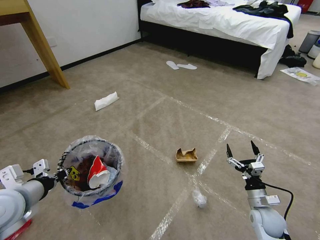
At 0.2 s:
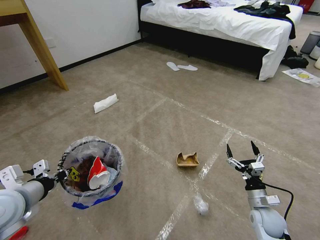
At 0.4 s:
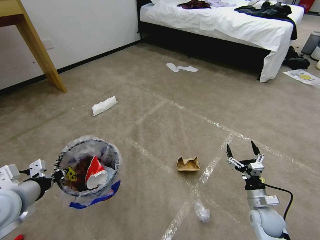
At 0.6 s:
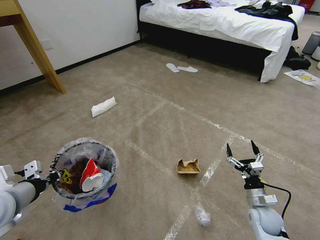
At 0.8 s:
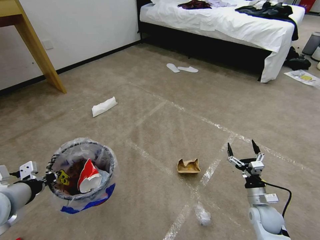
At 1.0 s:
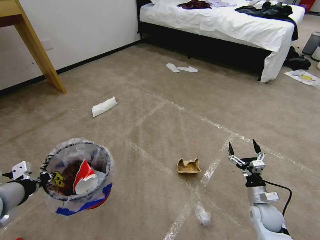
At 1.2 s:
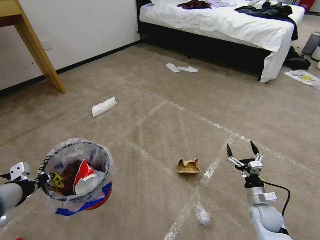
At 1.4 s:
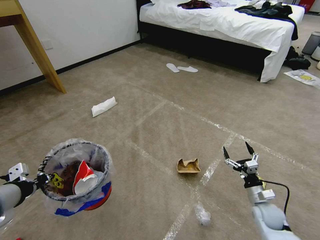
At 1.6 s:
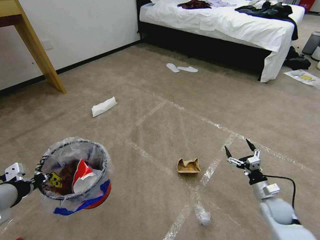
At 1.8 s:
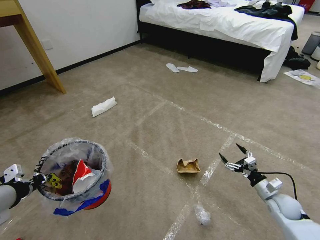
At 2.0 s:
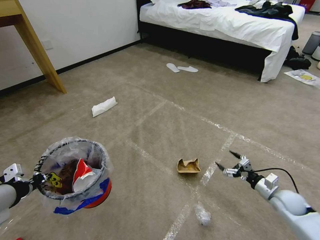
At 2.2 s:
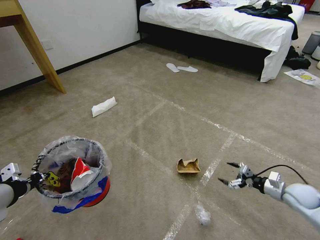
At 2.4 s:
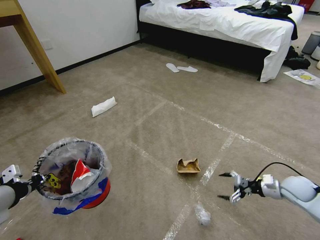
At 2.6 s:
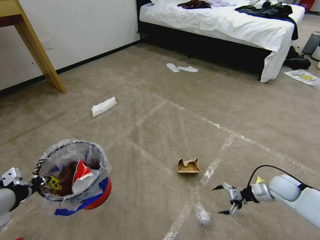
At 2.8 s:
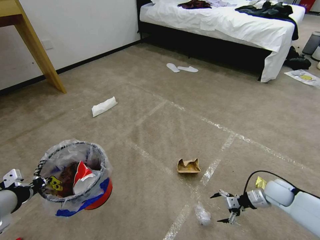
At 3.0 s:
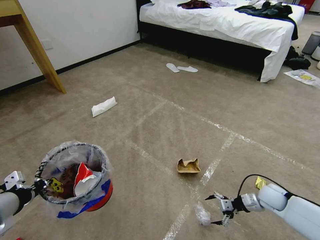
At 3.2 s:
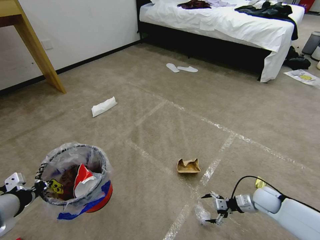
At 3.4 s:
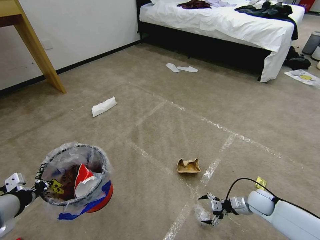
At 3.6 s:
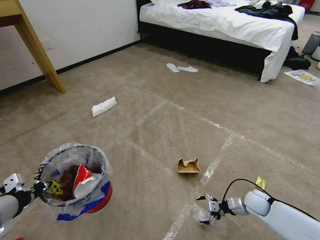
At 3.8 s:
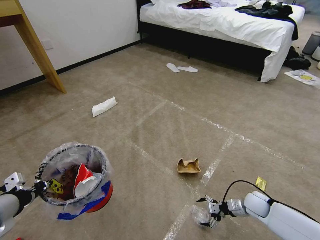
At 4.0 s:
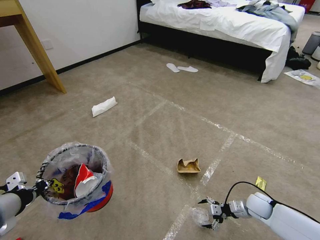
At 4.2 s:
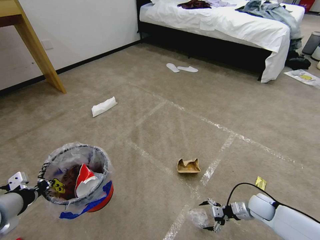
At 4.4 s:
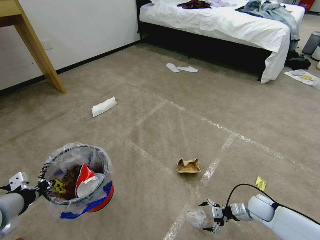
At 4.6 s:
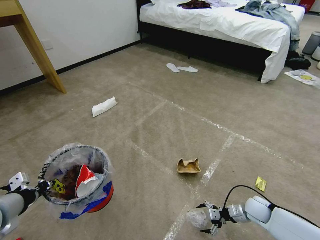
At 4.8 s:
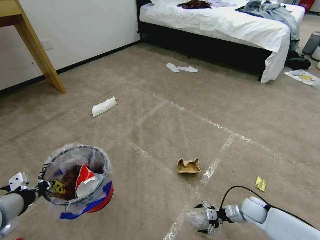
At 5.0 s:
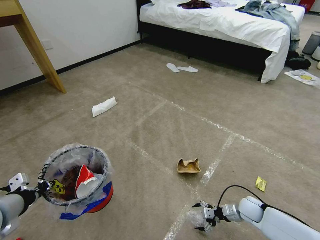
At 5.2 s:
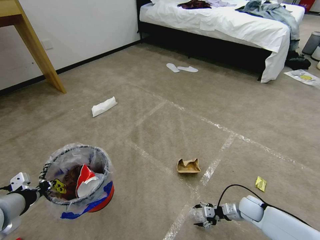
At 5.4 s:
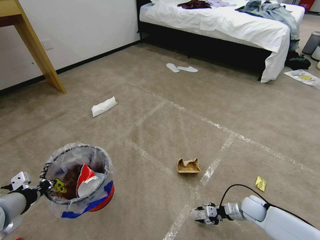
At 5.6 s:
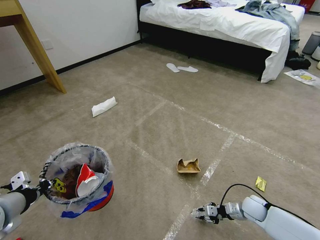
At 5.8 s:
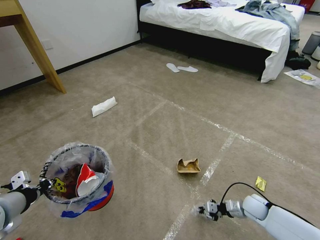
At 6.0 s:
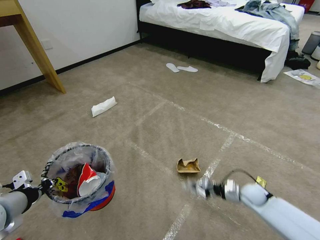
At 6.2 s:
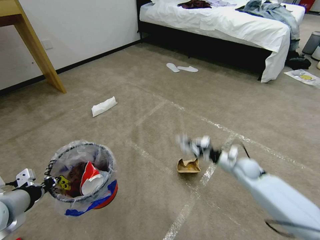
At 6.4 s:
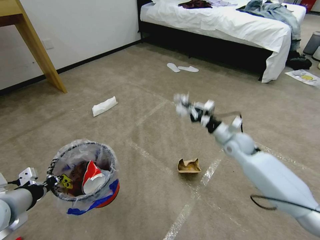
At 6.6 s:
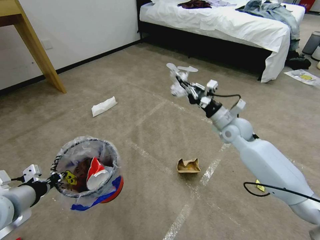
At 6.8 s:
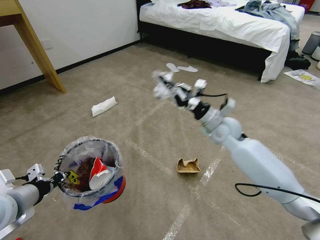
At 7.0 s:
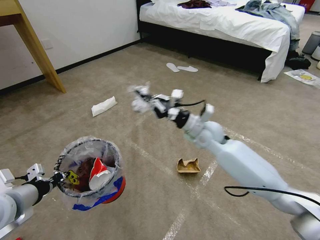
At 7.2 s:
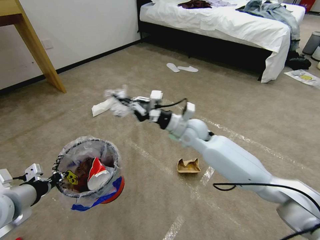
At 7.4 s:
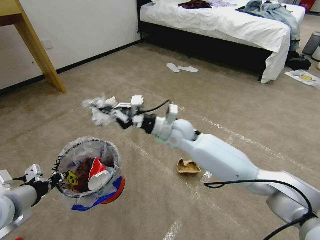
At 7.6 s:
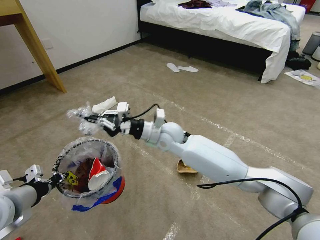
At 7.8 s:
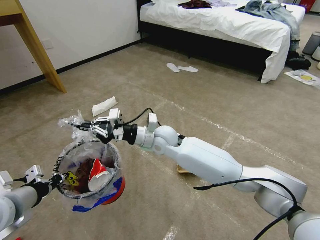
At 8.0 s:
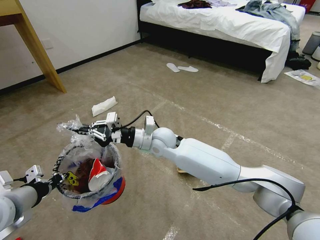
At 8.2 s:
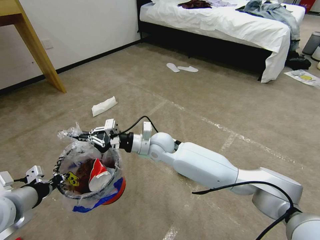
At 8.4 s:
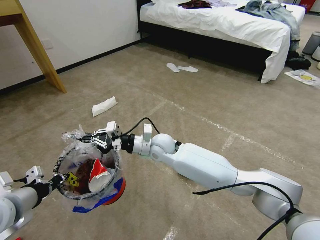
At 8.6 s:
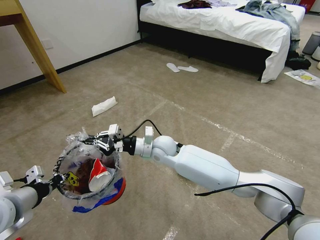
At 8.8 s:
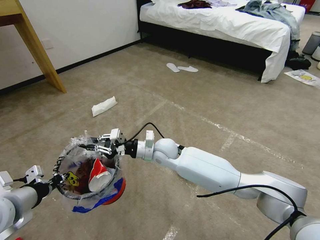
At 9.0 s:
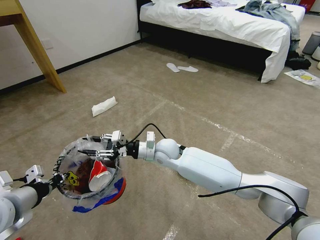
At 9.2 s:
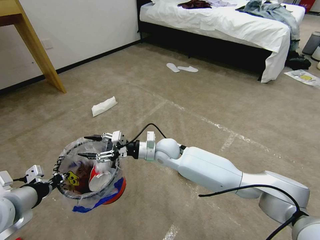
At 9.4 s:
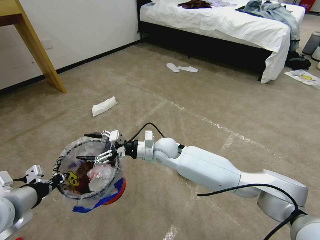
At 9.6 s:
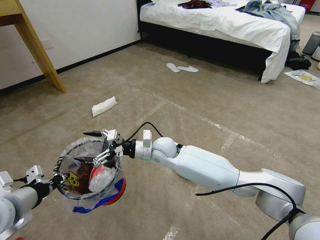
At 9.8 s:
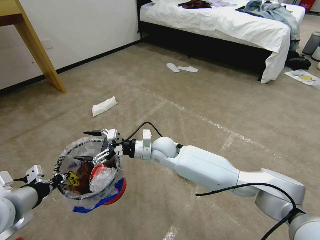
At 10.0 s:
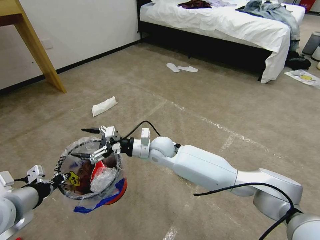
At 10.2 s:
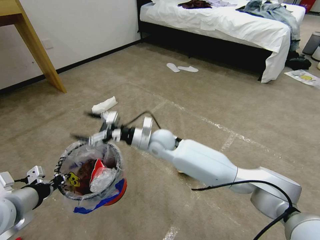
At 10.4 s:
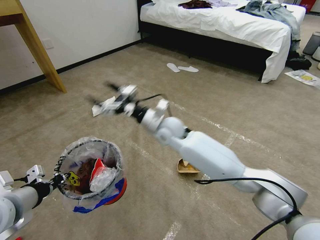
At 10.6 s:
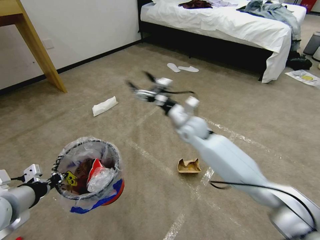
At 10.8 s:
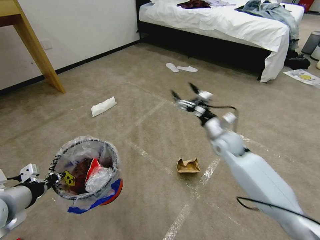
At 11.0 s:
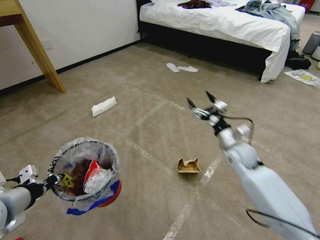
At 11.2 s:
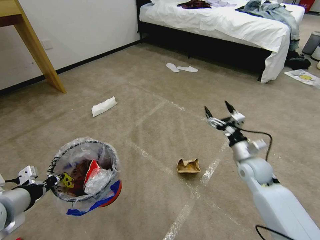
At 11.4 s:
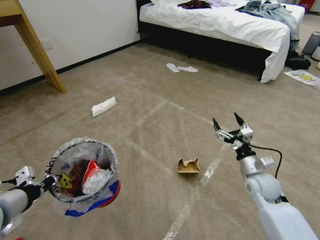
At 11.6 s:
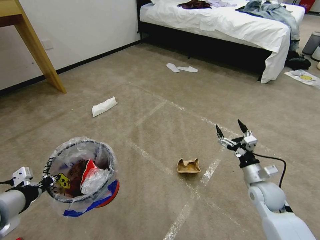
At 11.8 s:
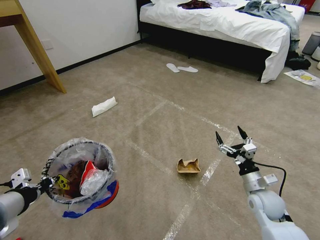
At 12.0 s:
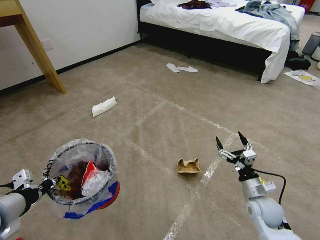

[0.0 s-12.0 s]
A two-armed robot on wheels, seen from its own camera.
Task of the whole recording: Pick up the trash bin and place the garbage on the floor into it.
0.0 to 1.6 s: The right gripper goes about 5 cm to the right; the left gripper shifts by some 5 cm.
3.0 to 4.4 s: The right gripper heads downward, covering roughly 5 cm.
4.4 to 6.0 s: The right gripper ends up about 5 cm from where it was, and closes up.
6.0 to 7.6 s: The right gripper shifts some 40 cm to the left and upward.
7.6 to 9.0 s: The right gripper travels downward by roughly 5 cm, and opens up.
9.0 to 10.4 s: The right gripper travels upward by some 10 cm, and opens.
10.4 to 12.0 s: The right gripper shifts some 40 cm to the right, backward and downward.

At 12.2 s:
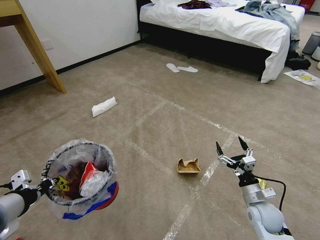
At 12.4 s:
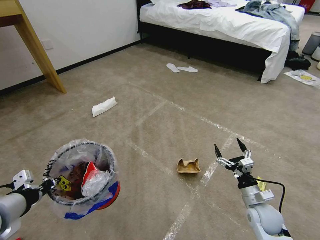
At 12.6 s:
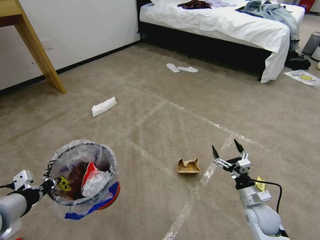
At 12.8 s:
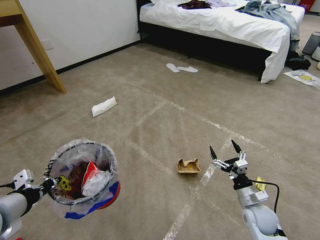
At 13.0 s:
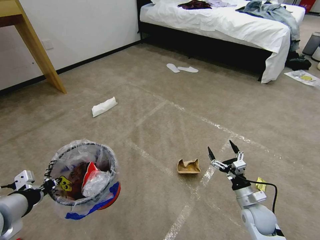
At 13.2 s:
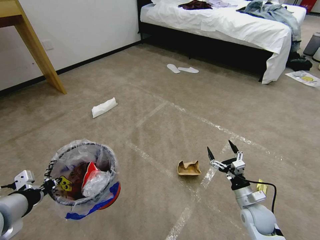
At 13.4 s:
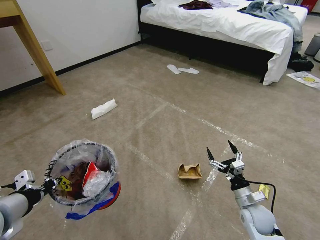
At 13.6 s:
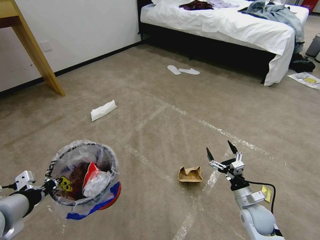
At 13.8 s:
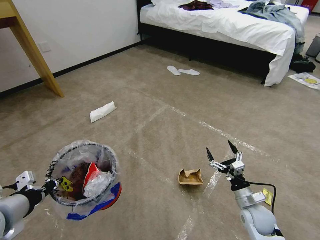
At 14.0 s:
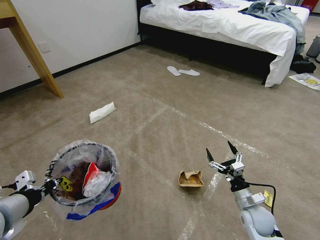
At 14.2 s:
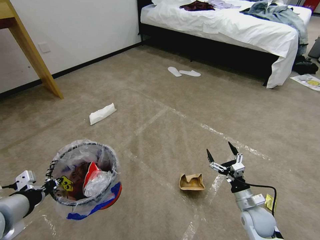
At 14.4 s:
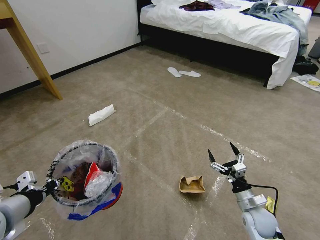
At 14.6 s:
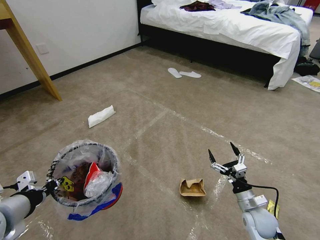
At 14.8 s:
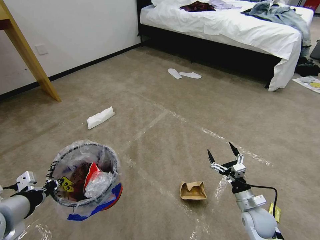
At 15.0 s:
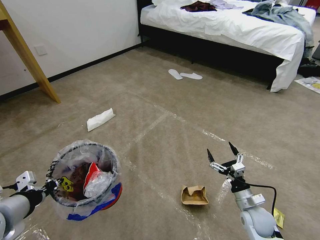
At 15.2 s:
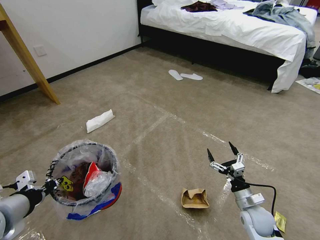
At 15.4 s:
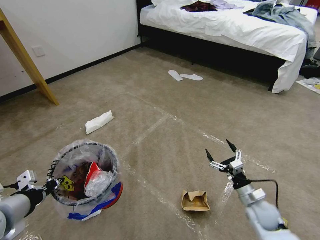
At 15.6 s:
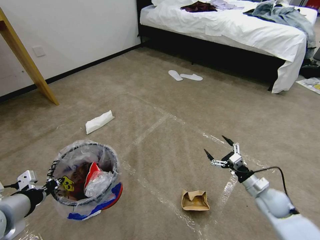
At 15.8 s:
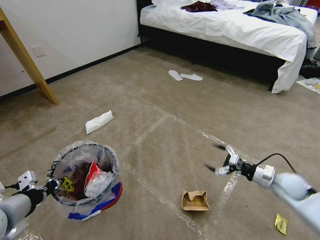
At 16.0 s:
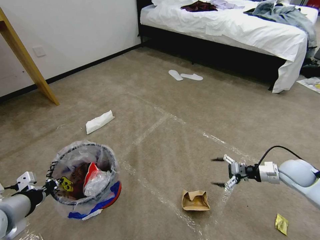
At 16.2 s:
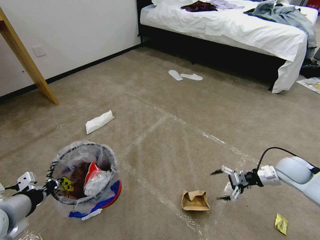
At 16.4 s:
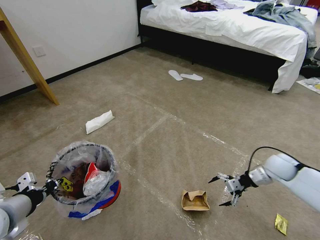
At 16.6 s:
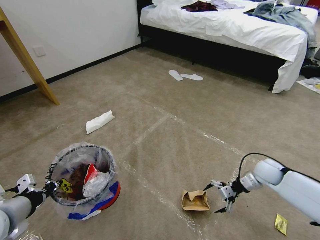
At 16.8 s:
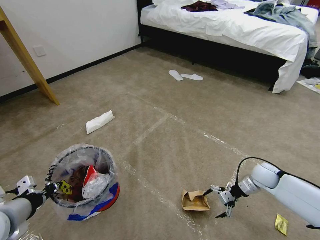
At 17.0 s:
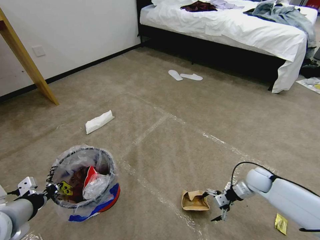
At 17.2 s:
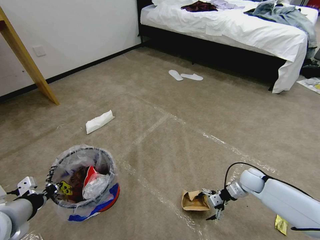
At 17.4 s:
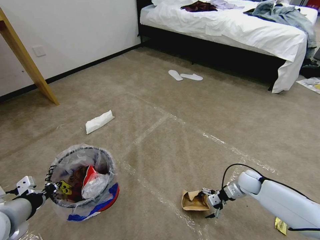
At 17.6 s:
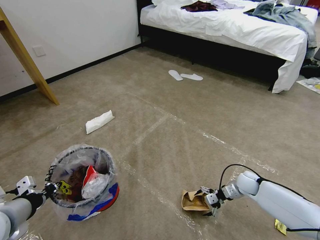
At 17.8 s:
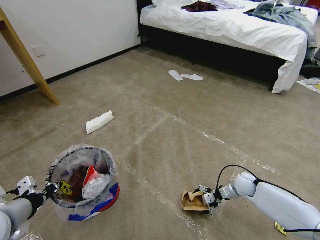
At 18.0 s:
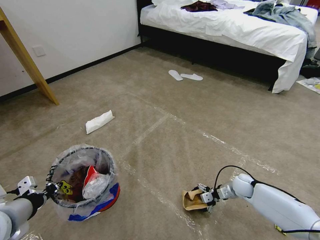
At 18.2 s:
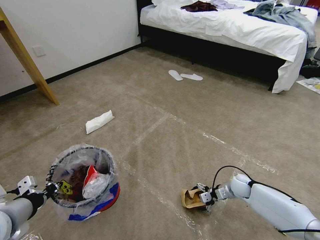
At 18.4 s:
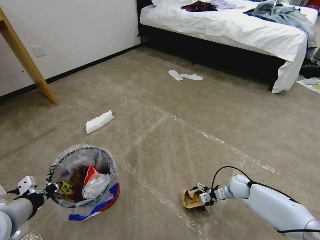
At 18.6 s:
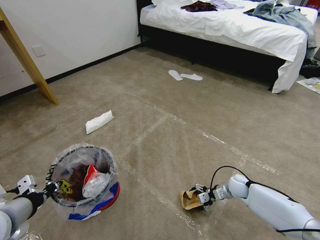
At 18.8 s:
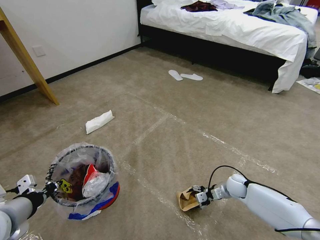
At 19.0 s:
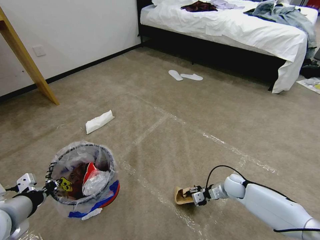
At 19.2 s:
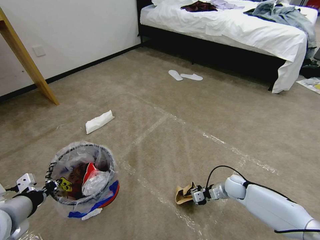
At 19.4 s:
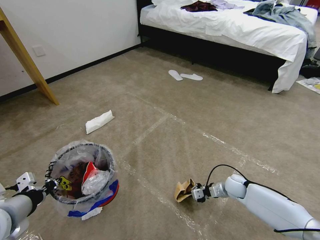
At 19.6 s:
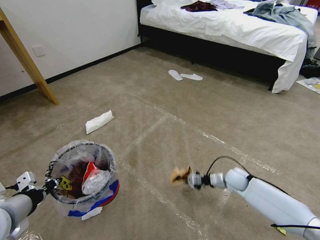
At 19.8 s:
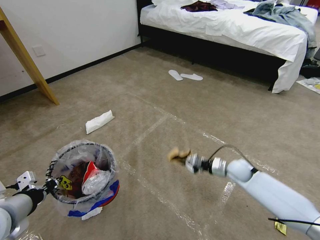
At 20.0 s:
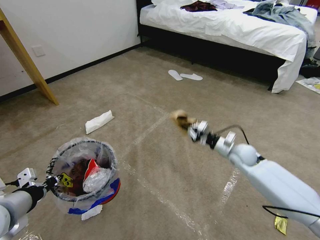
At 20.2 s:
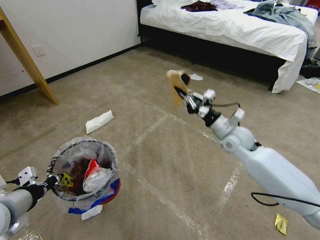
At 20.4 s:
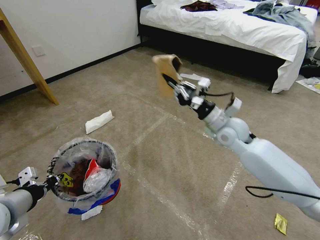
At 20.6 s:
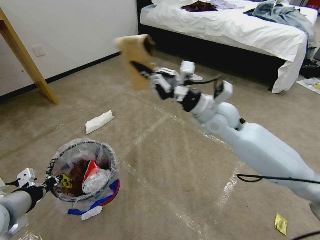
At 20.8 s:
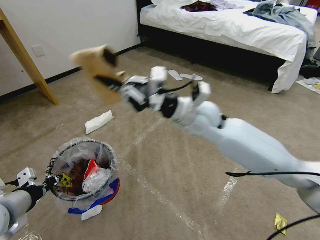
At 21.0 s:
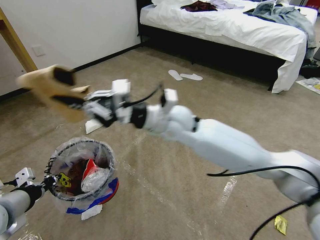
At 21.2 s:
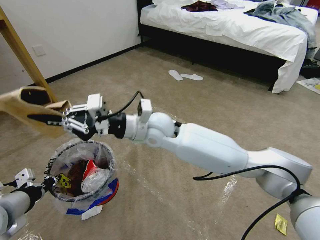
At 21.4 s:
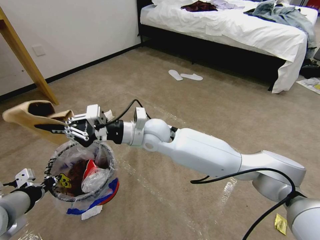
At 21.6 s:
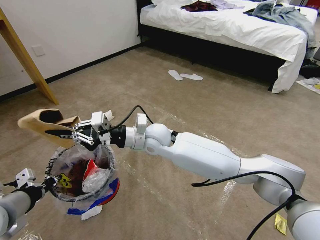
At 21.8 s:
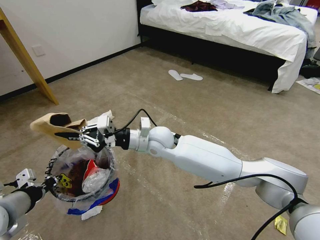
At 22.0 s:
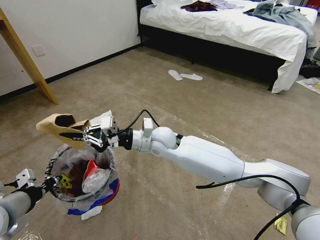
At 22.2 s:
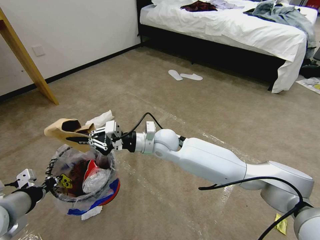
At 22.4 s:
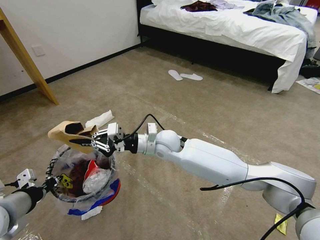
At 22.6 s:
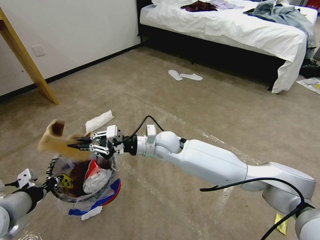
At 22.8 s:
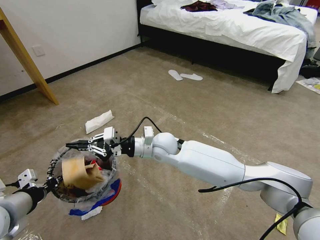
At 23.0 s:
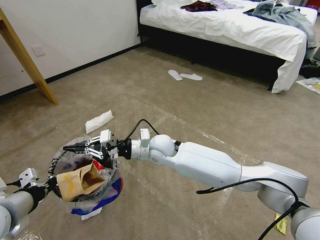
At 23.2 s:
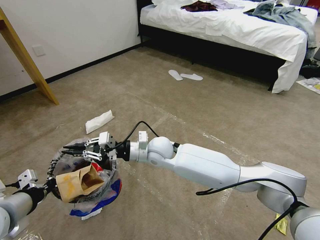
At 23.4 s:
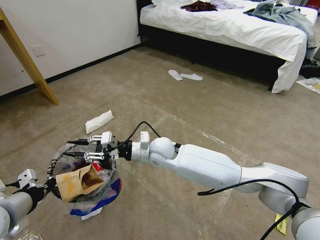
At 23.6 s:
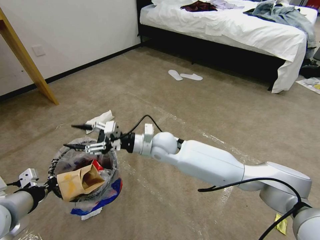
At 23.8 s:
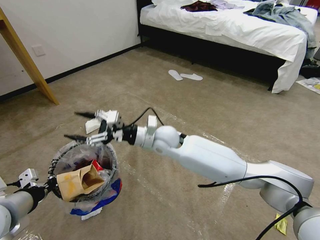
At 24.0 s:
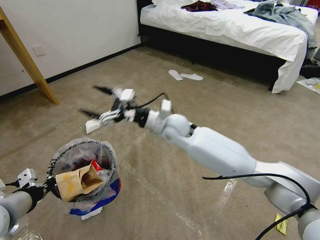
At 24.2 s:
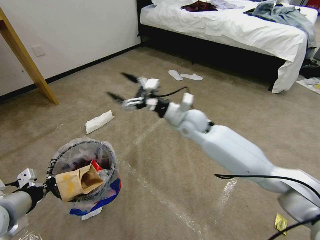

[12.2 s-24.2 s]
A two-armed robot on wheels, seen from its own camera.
Task of the whole recording: Pick up the trash bin and place the garbage on the floor into it.
12.2 to 13.8 s: The grippers stay close to where they were, moving slightly.
13.8 to 15.2 s: The two grippers keep their place.
15.2 to 16.6 s: The right gripper heads forward, to the right and upward, covering roughly 20 cm.
16.6 to 18.2 s: The right gripper travels downward and to the left by about 15 cm.
18.2 to 19.8 s: The right gripper shifts roughly 10 cm upward, and closes up.
19.8 to 21.2 s: The right gripper travels to the left and upward by approximately 40 cm.
21.2 to 22.6 s: The right gripper moves downward, roughly 10 cm.
22.6 to 24.2 s: The right gripper heads to the right and upward, covering some 10 cm, and opens its fingers.
